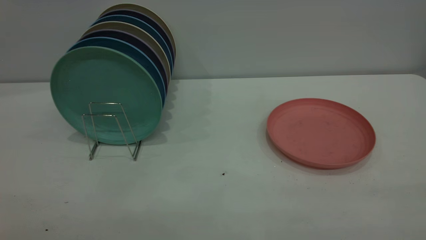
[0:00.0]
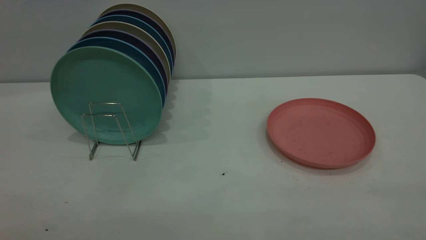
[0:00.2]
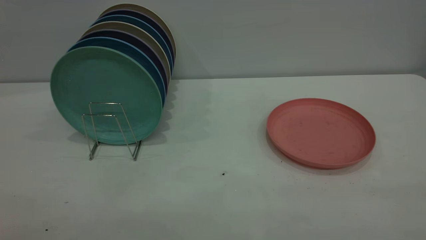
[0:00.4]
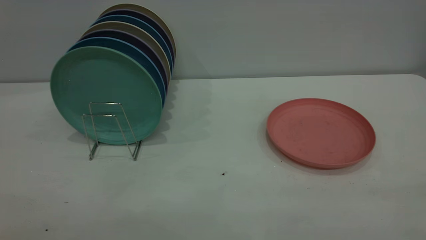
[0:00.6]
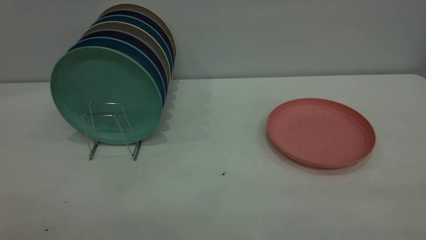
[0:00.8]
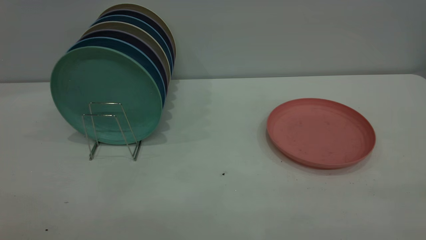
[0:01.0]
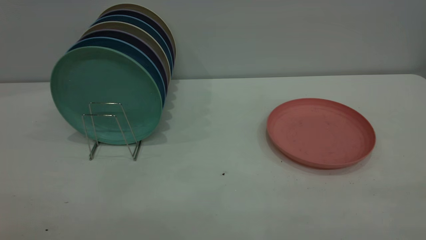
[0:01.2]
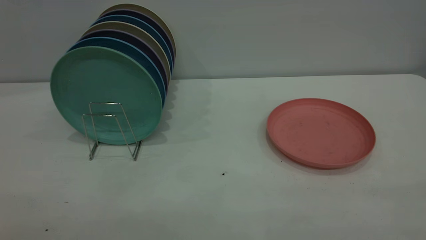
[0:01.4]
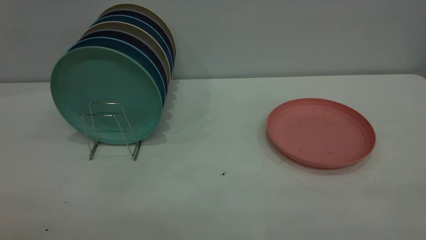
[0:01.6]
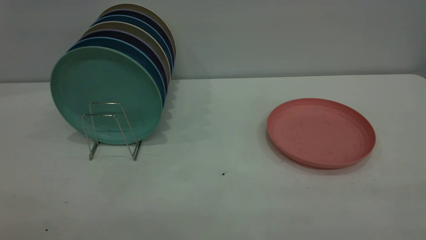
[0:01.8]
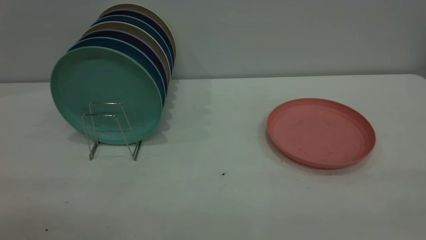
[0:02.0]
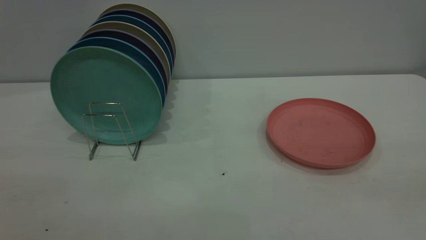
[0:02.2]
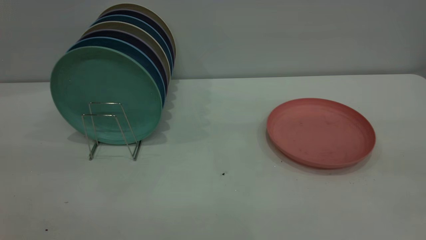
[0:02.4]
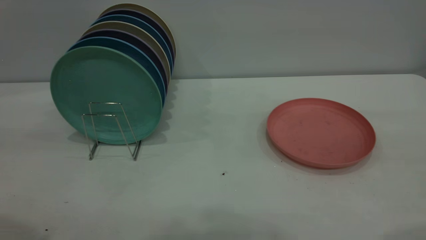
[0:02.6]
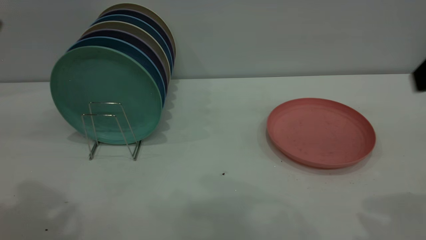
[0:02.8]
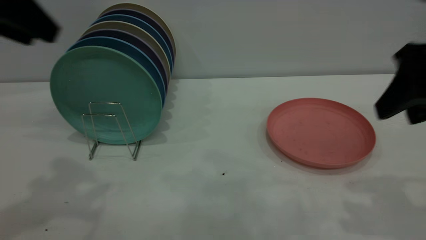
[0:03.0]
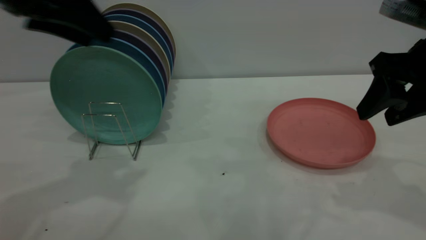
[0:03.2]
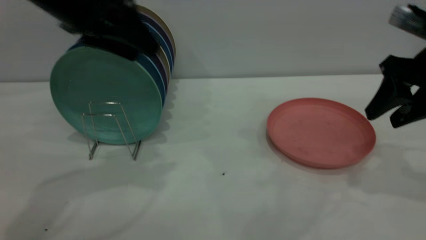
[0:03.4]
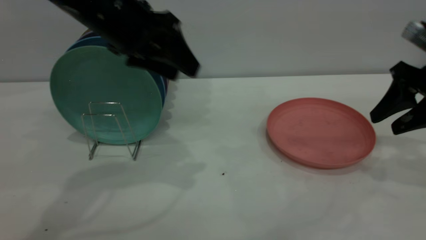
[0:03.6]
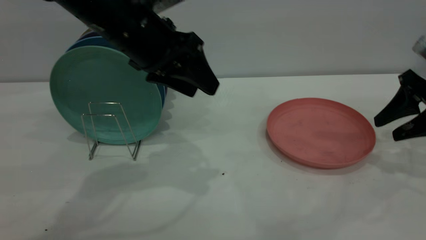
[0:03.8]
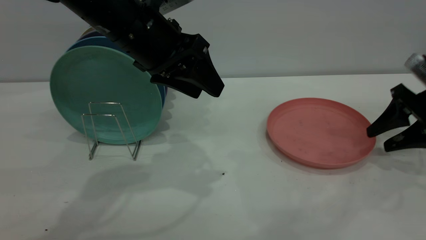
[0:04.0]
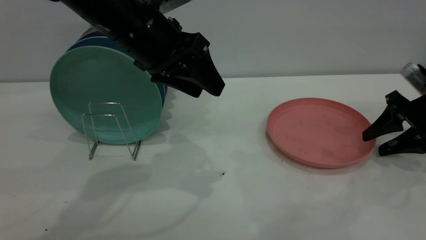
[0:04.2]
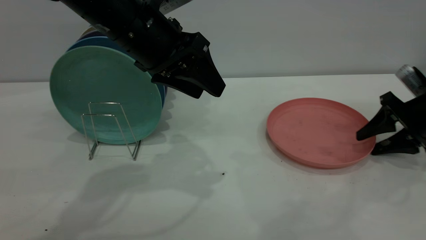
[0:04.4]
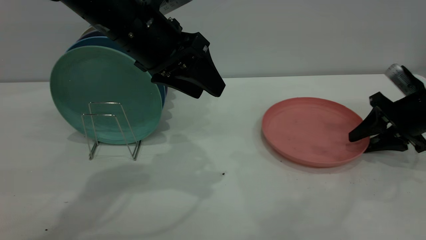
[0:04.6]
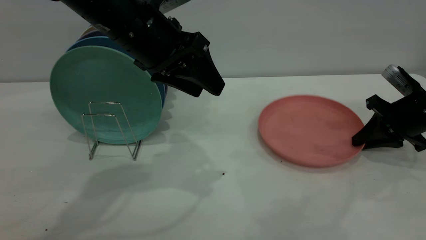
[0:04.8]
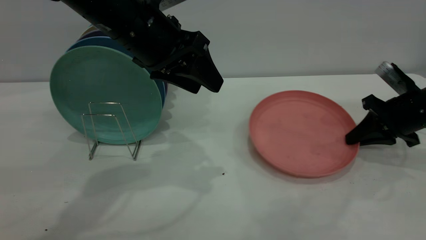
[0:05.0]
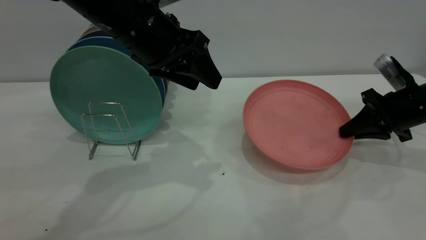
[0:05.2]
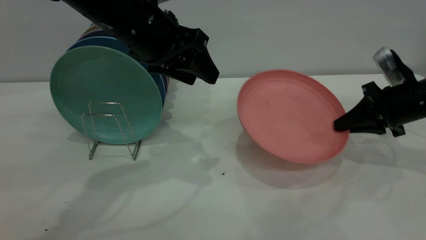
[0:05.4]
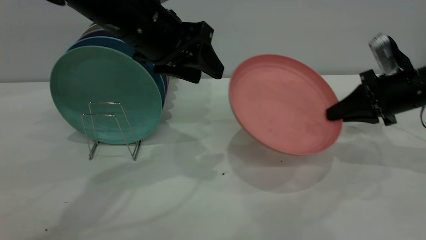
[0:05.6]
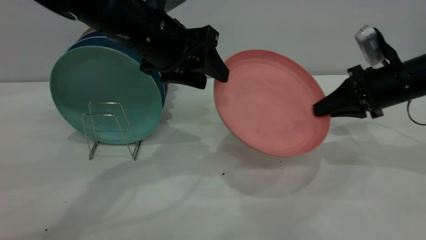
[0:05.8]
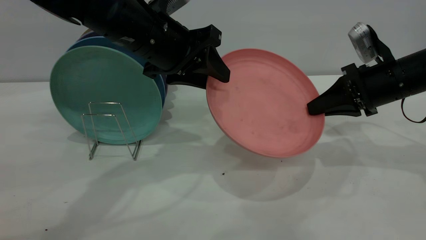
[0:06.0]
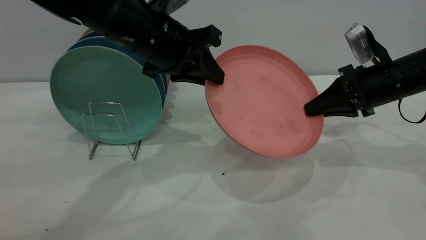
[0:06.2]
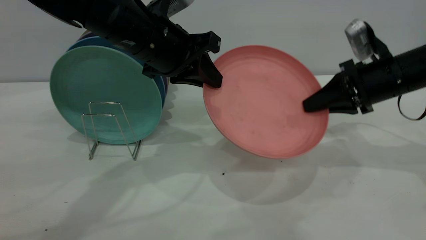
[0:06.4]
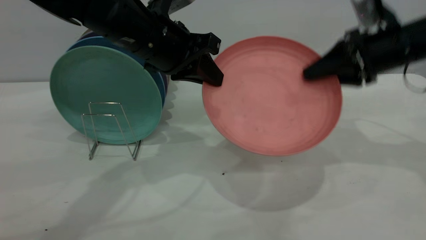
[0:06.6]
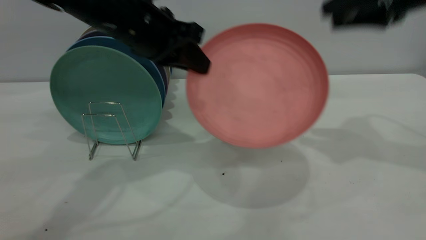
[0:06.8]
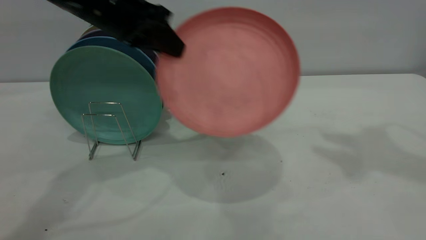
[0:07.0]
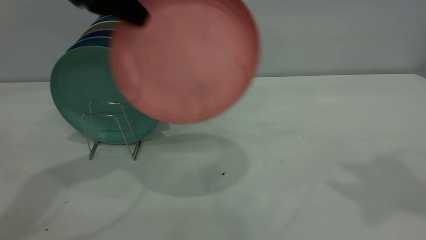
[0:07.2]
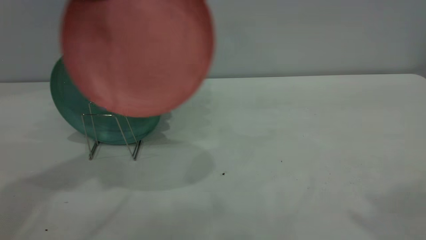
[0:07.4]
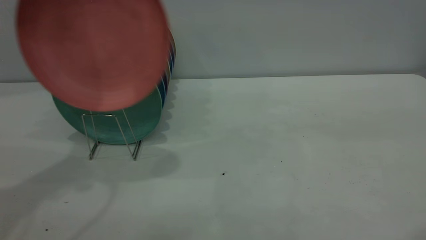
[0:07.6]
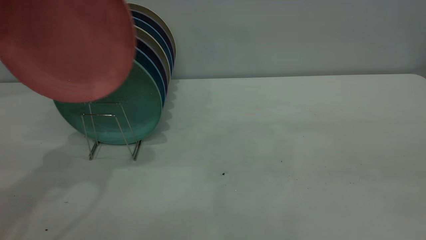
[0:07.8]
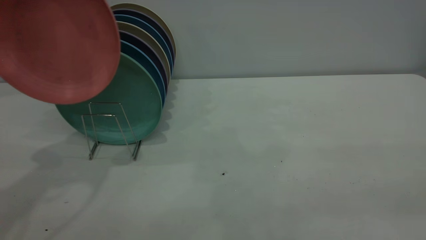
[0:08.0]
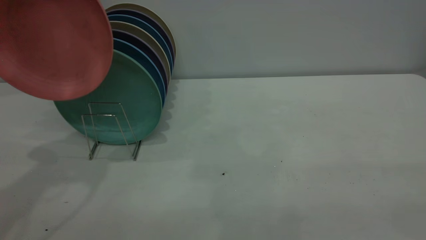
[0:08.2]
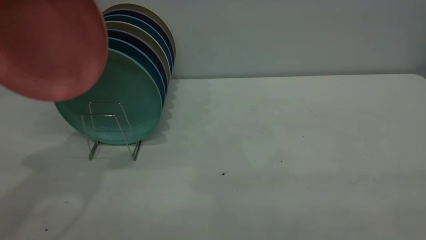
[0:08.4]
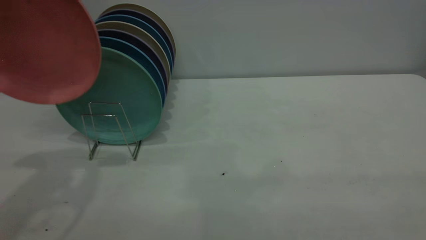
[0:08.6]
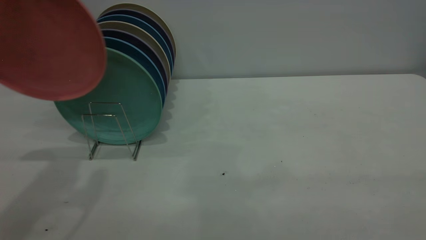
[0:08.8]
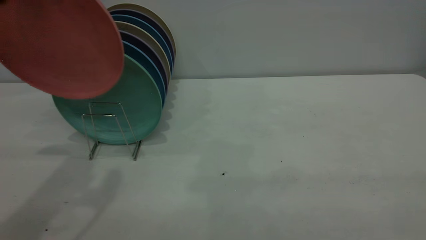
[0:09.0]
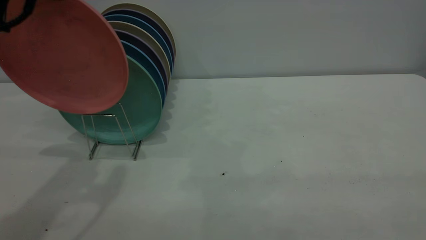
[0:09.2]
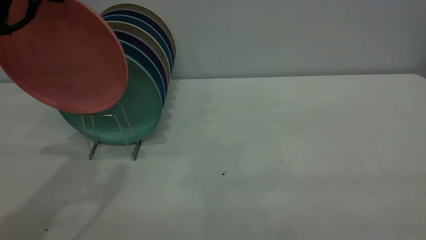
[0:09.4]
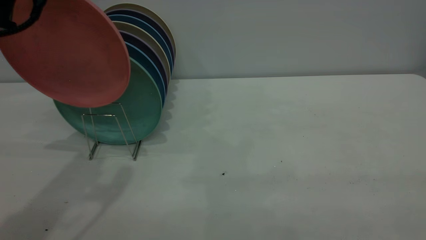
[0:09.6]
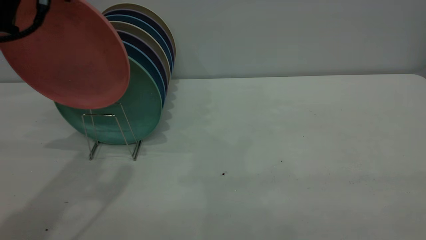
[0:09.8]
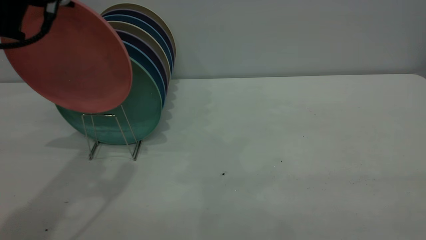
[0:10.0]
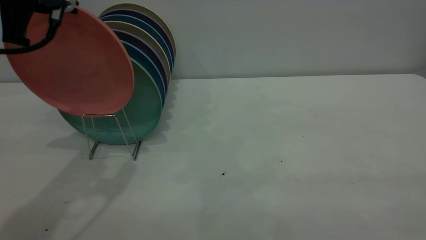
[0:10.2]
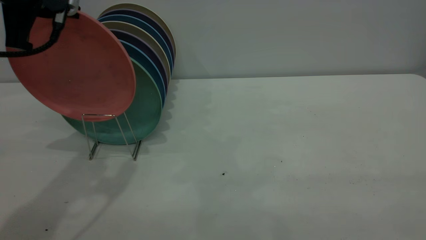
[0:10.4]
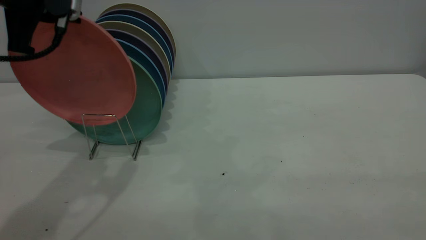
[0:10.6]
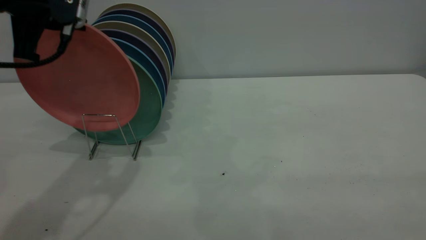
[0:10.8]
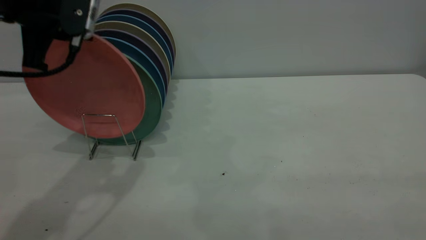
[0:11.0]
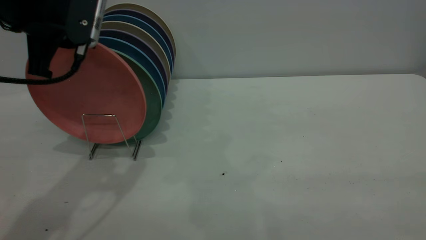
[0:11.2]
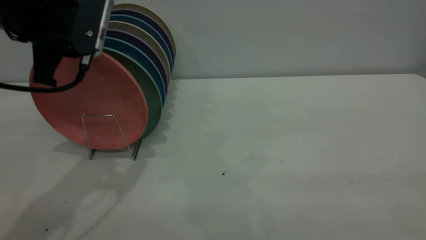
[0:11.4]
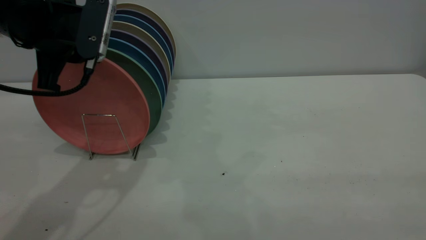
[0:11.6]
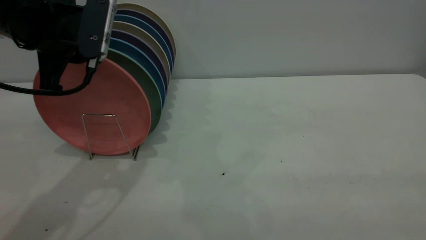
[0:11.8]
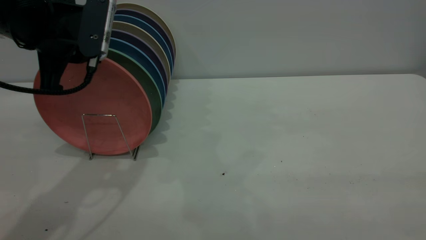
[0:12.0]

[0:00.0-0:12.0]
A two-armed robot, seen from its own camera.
Task of the whole recording: the right gripper grasp the pink plate, the right gripper pass the pink plate to the left gripper, and the left gripper place the pink plate on the plate rack.
Step, 0:00.0 to 0:05.2: Pick up the plate with the right gripper.
Step, 0:05.6 to 0:06.6: Pass the plate from the right gripper to the left gripper.
0:00.0 to 0:01.6: Both grippers stay about where they are.
0:01.6 to 0:03.0: Both grippers move forward, about 30 cm. The right gripper opens up.
0:03.0 to 0:04.4: The right gripper shifts approximately 25 cm downward, forward and to the right; the left gripper heads to the right and downward, covering some 15 cm.
0:04.4 to 0:06.0: The right gripper goes about 10 cm to the left, and closes.
0:06.0 to 0:07.6: The right gripper moves upward and backward, approximately 40 cm, and opens its fingers. Meanwhile the left gripper moves upward and to the left, about 20 cm, and closes up.
0:07.6 to 0:09.0: The right gripper moves backward and downward, some 20 cm.
0:09.0 to 0:10.4: The left gripper moves approximately 5 cm.
0:10.4 to 0:12.0: The left gripper travels downward by some 5 cm.

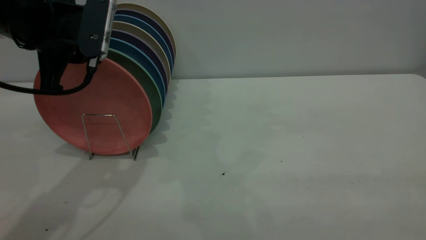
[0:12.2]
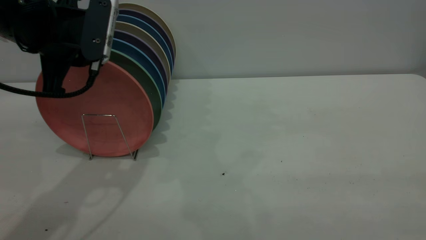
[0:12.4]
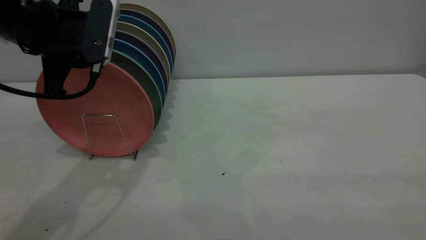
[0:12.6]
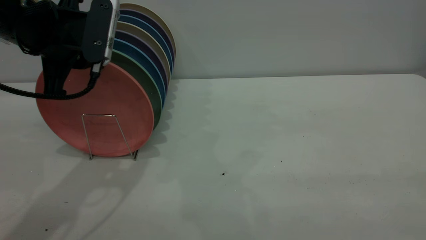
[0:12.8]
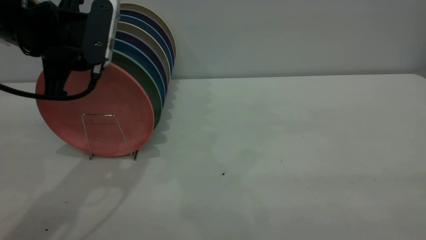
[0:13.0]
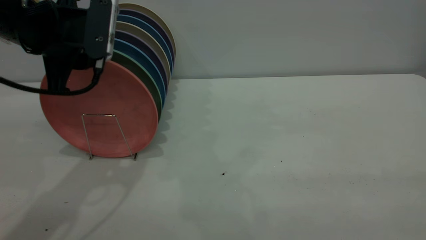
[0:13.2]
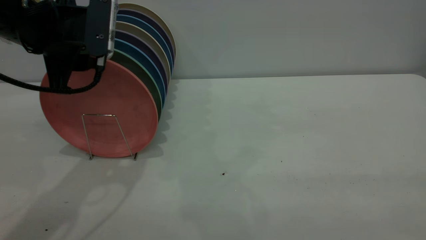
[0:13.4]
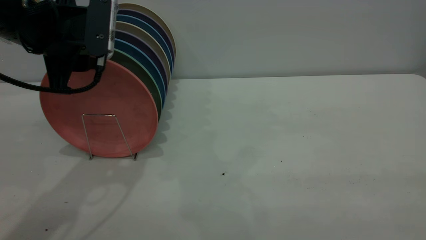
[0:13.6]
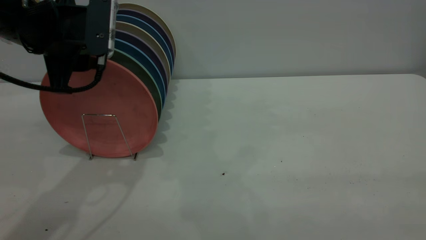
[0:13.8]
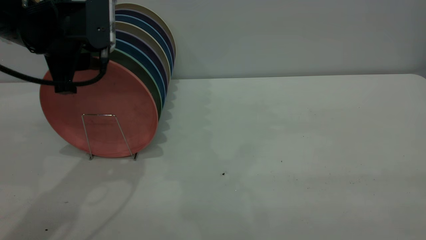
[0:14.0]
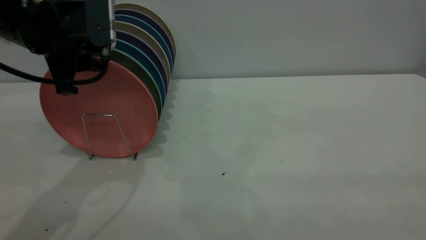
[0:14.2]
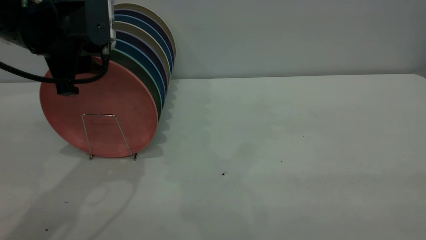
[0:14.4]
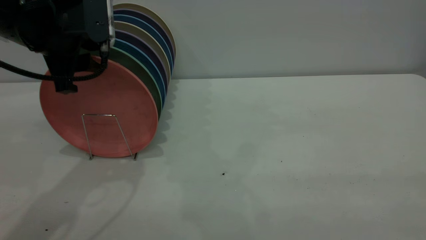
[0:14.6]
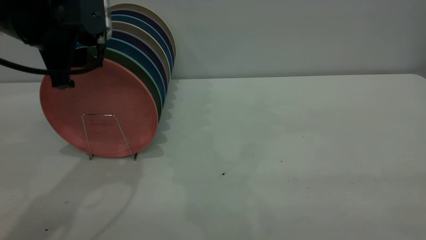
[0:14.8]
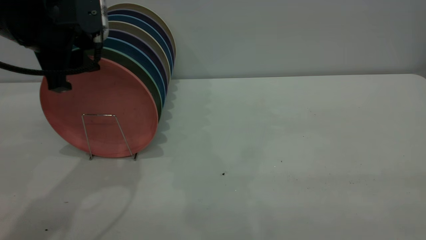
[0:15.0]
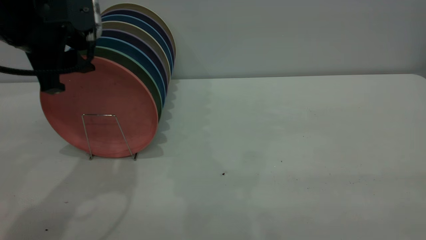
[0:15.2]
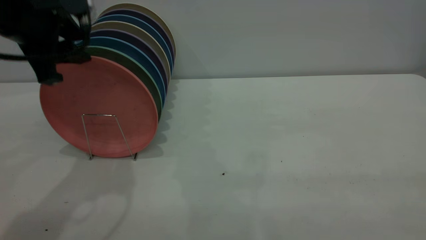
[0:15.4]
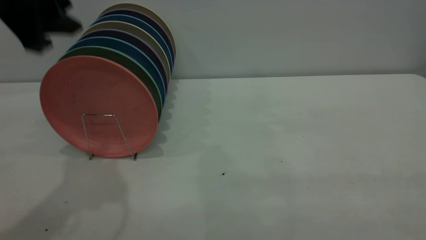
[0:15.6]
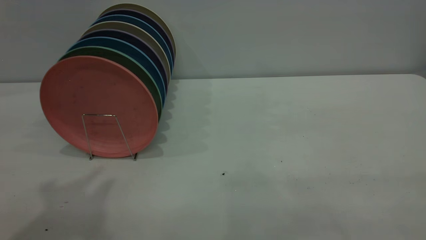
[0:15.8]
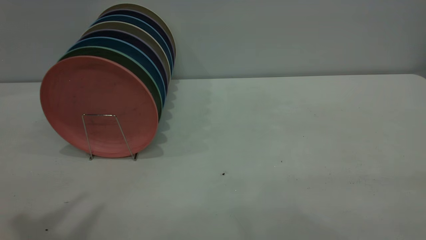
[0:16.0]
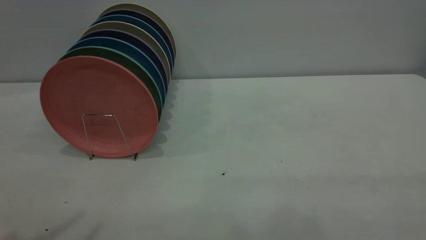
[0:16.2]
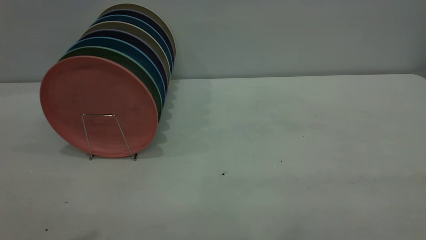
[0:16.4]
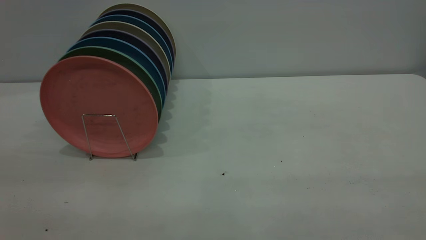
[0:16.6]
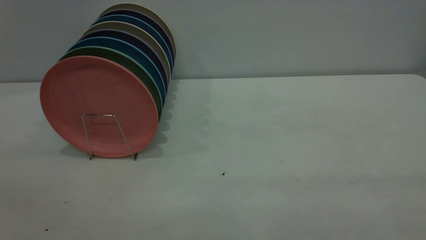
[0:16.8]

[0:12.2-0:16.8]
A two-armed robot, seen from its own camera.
Task of the whole recording: the right gripper grasp the pink plate, the right gripper pass the pink plate to the left gripper, and the left gripper place the pink plate on the plate rack.
Step, 0:12.2 to 0:15.4: Place the plate on the shelf.
0:12.2 to 0:13.8: The left gripper opens.
0:13.8 to 0:15.2: The grippers move only a little.
0:15.2 to 0:16.8: The left gripper moves backward, approximately 20 cm.
